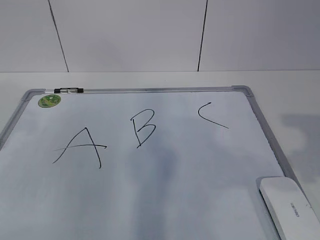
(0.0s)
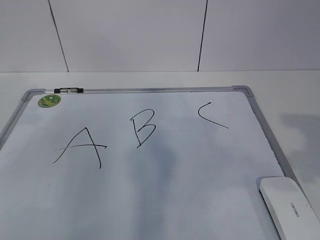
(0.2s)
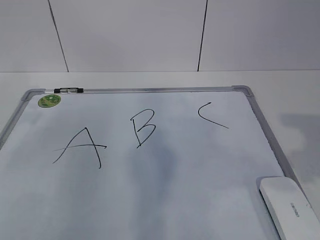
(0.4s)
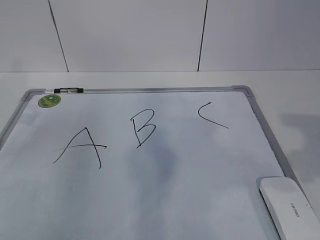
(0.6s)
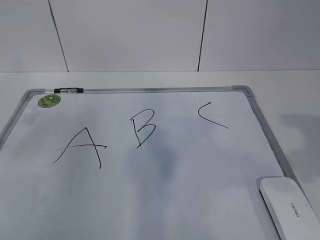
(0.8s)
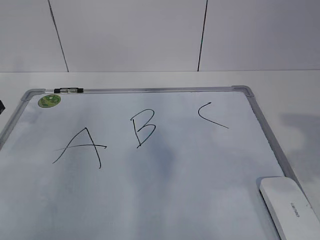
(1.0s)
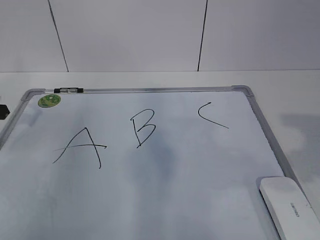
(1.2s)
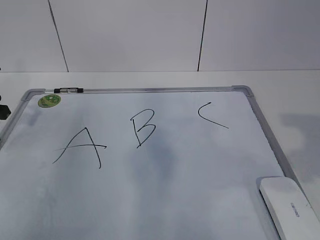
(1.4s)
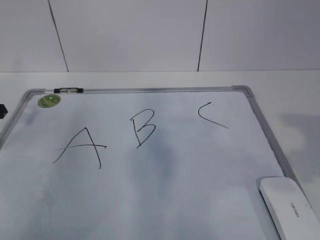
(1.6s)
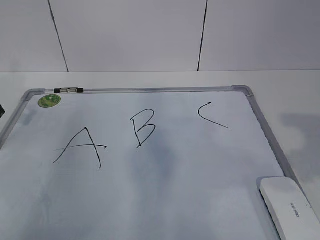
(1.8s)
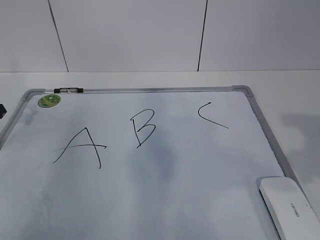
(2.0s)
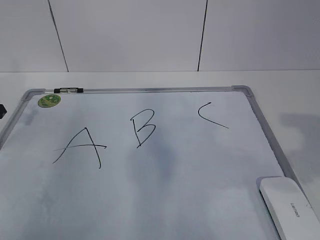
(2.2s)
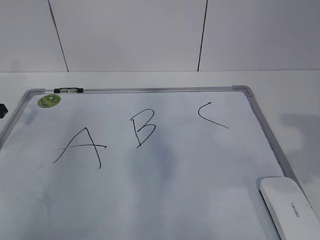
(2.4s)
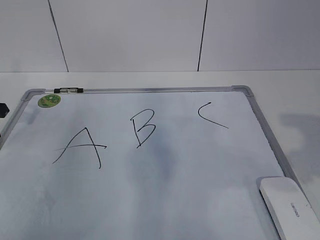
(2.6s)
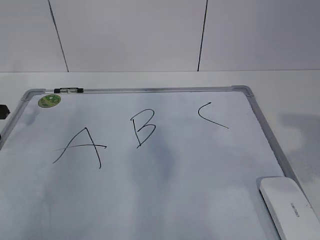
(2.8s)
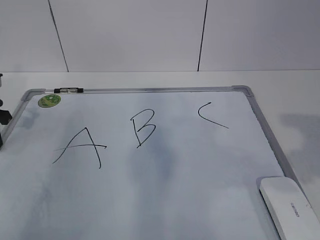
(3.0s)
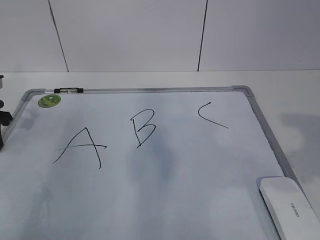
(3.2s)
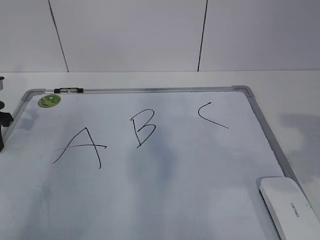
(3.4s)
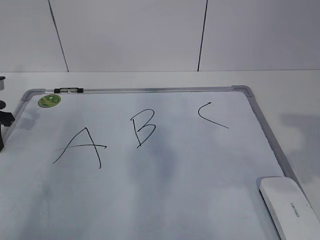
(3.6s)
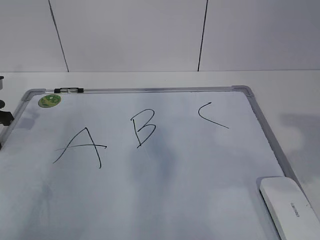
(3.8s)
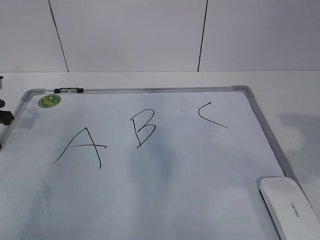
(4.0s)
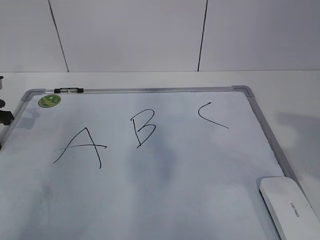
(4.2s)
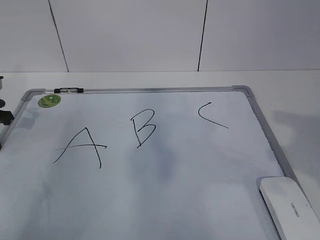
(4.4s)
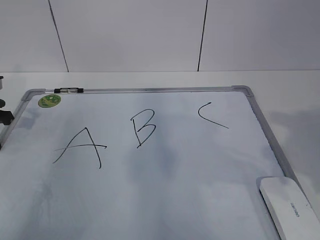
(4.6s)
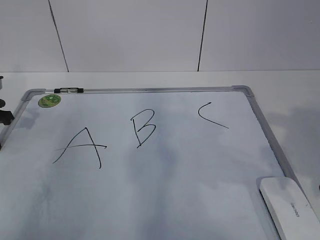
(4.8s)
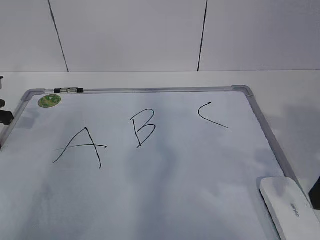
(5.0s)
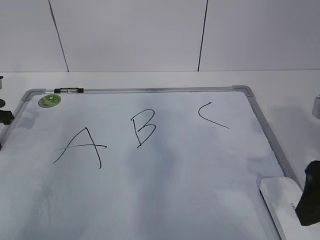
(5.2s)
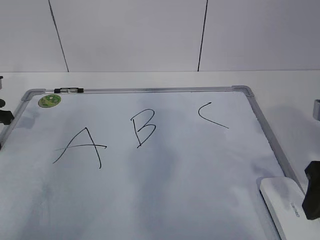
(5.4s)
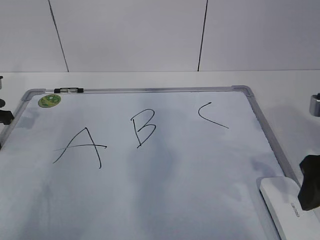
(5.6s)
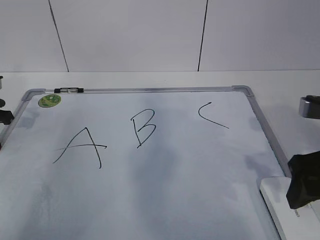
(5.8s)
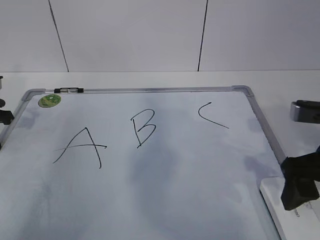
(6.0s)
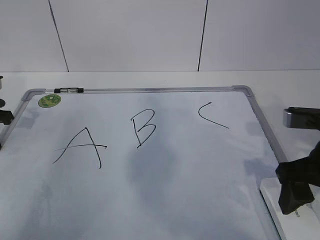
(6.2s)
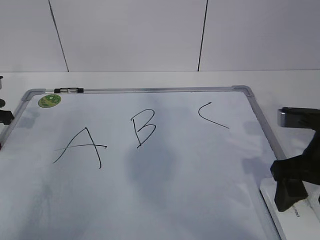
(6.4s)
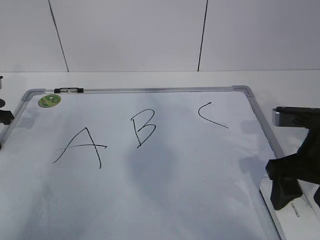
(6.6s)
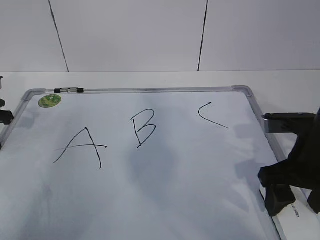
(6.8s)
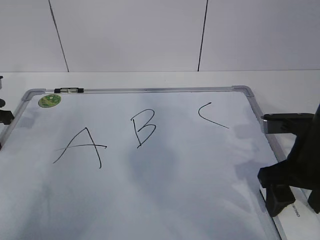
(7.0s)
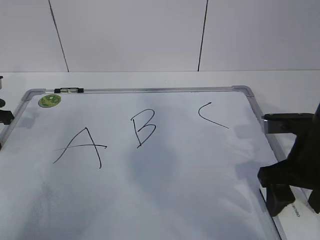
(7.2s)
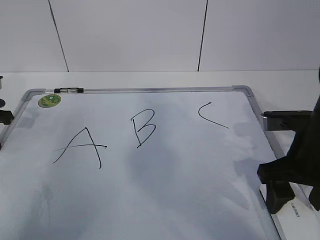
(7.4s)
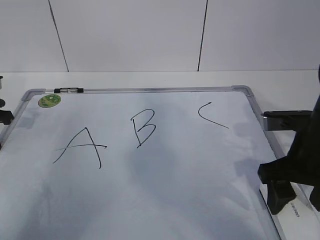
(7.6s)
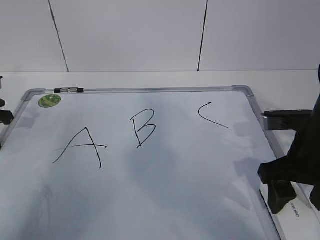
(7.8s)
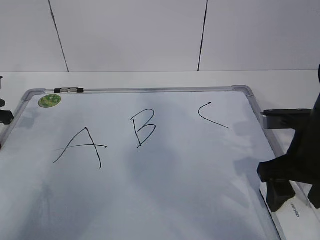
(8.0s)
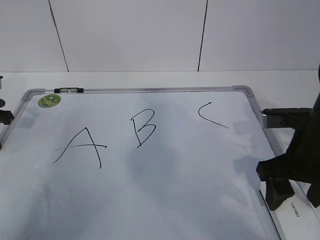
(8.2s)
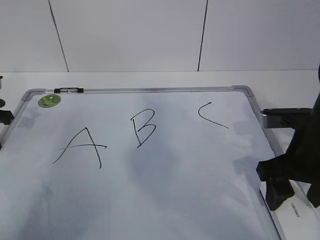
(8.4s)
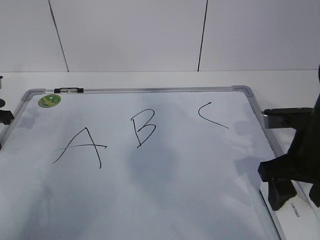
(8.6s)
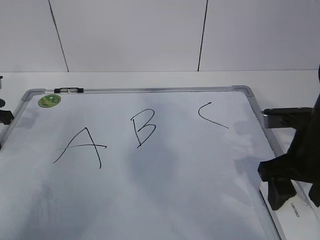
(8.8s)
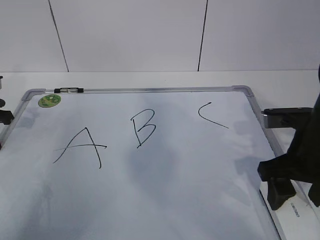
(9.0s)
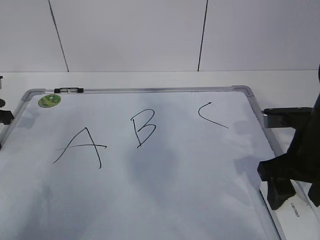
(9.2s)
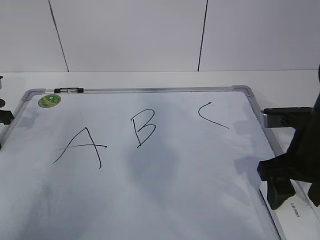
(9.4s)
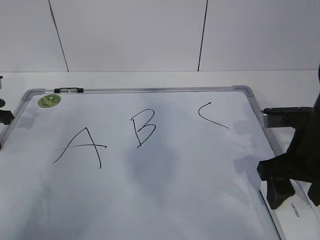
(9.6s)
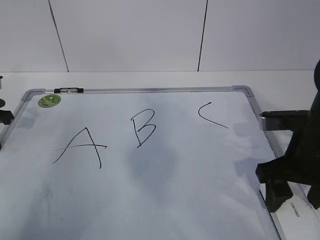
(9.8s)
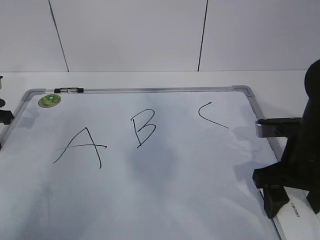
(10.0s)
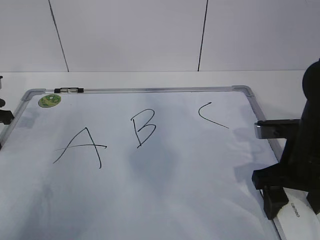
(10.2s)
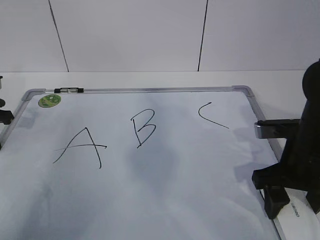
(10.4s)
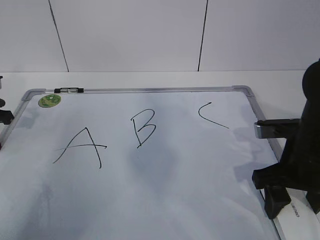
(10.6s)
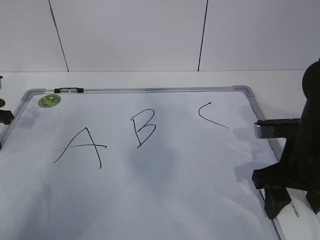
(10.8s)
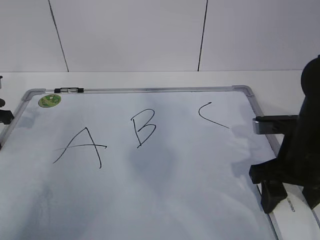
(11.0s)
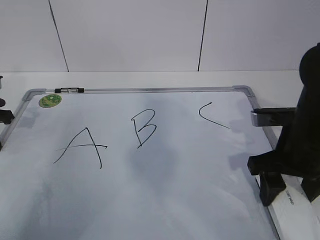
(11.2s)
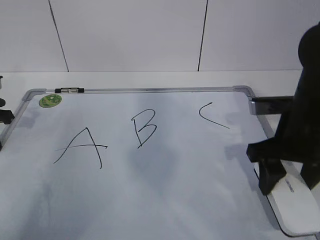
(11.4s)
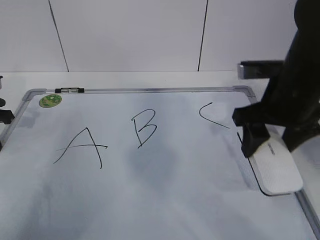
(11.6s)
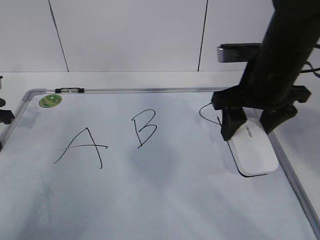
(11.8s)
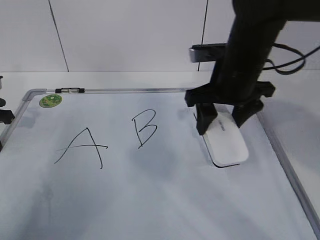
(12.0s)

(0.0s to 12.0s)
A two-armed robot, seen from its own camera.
Task of the whole recording: pick up the eraser on the blackboard and erase the letter "B".
Step, 2.4s - 8.0s: Grab the eraser with your right hand.
0.0s - 1.6s: The left gripper heads forward and downward, covering roughly 20 cm.
4.4s - 6.0s: The right gripper goes approximately 10 cm downward and forward.
6.0s - 7.6s: There are only small adjustments of the grippers.
7.6s - 9.0s: The two grippers keep their place.
9.0s - 10.4s: The grippers stay close to where they were, moving slightly.
10.4s - 12.0s: The right gripper is displaced forward, to the left and upward by roughly 15 cm.

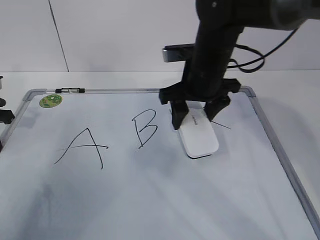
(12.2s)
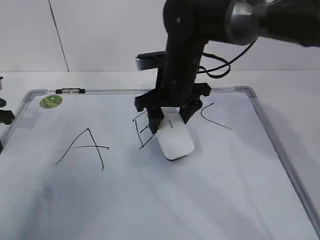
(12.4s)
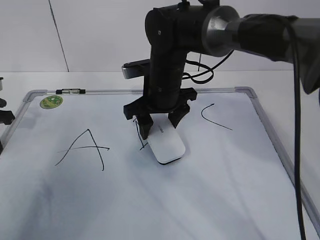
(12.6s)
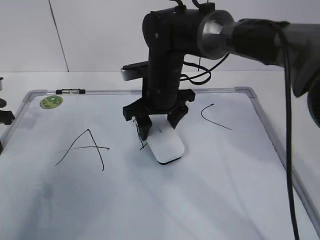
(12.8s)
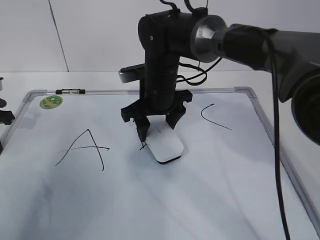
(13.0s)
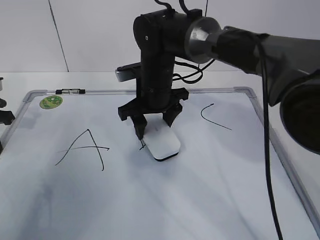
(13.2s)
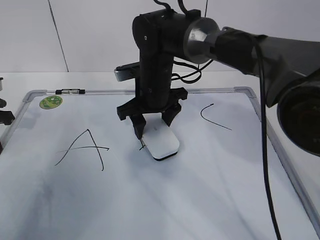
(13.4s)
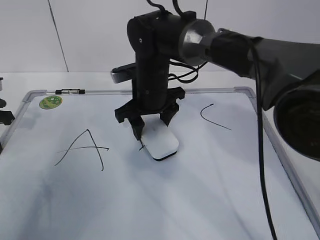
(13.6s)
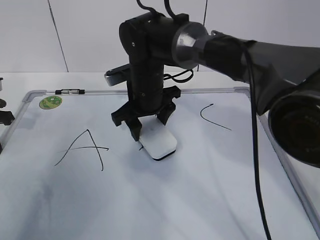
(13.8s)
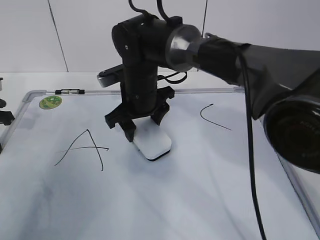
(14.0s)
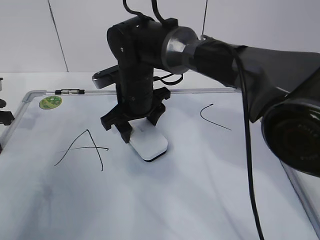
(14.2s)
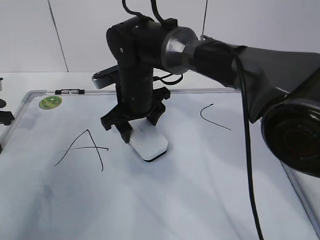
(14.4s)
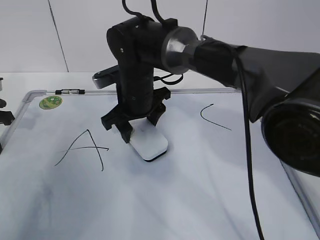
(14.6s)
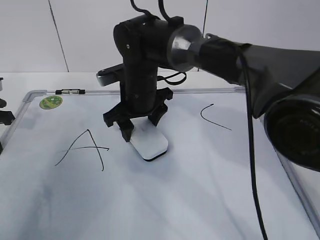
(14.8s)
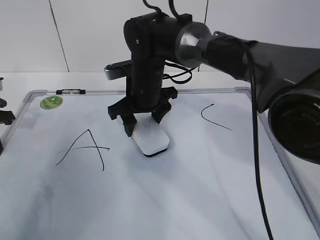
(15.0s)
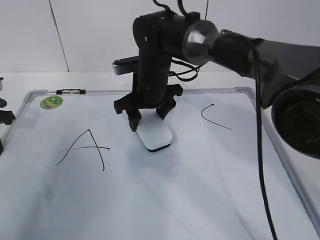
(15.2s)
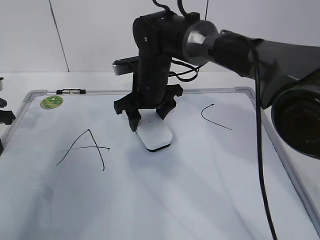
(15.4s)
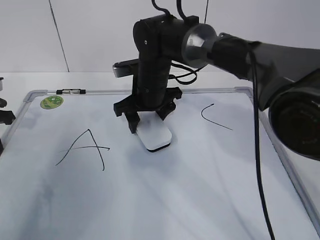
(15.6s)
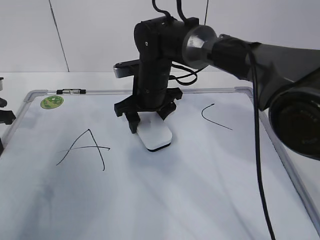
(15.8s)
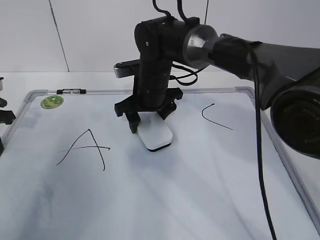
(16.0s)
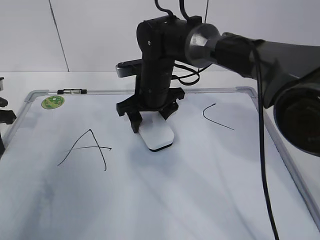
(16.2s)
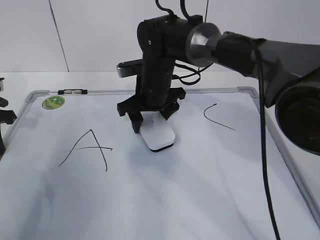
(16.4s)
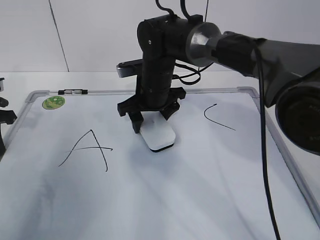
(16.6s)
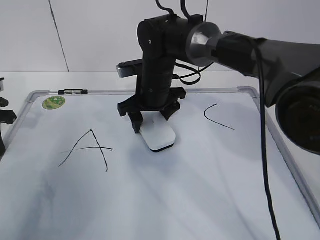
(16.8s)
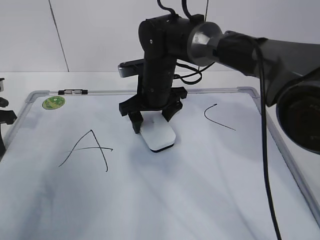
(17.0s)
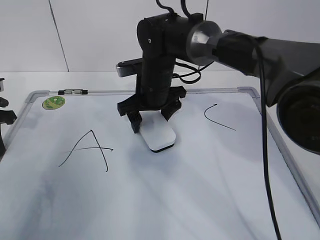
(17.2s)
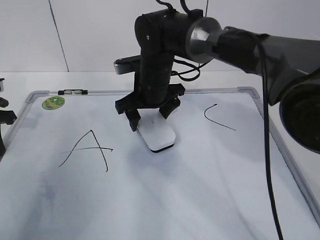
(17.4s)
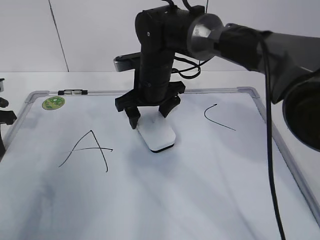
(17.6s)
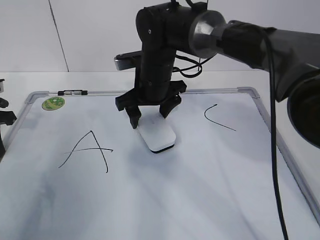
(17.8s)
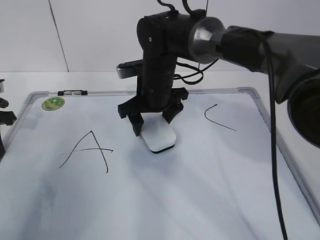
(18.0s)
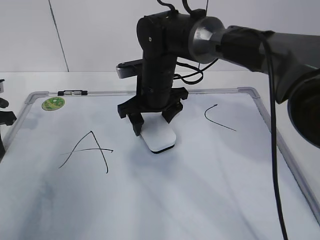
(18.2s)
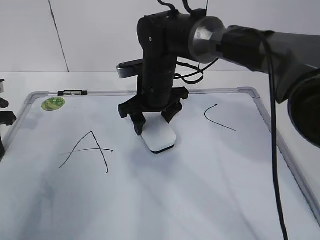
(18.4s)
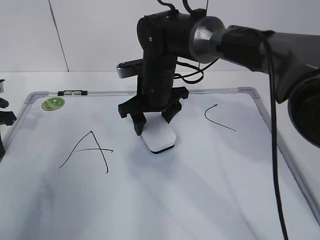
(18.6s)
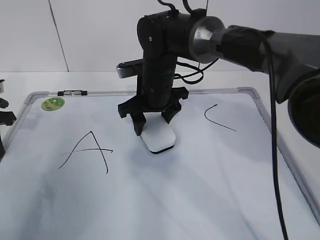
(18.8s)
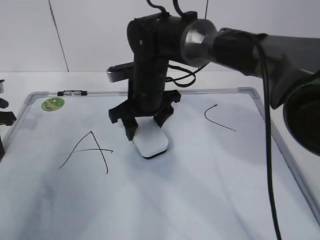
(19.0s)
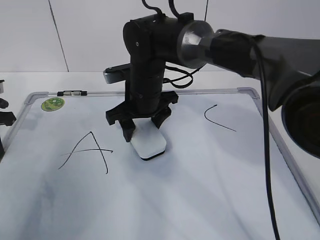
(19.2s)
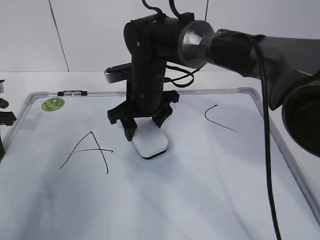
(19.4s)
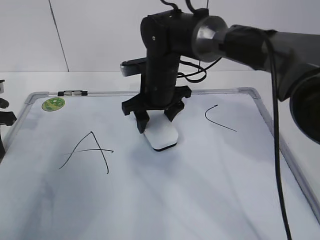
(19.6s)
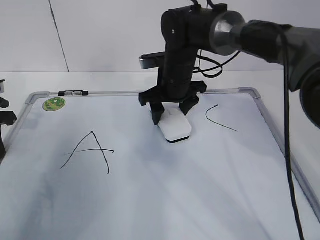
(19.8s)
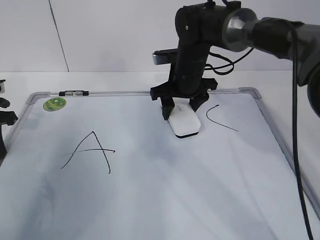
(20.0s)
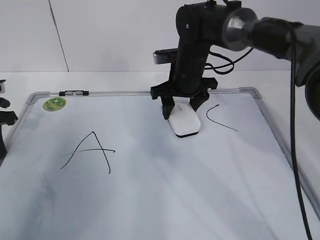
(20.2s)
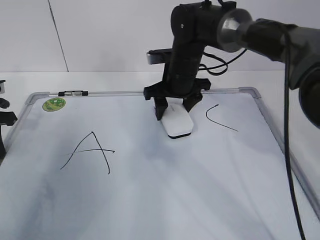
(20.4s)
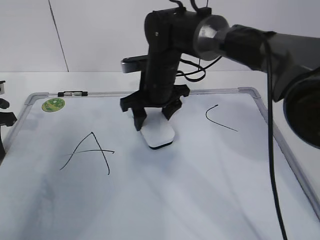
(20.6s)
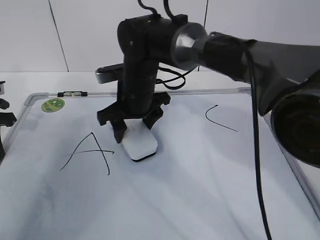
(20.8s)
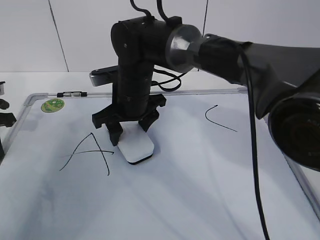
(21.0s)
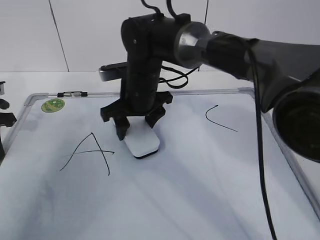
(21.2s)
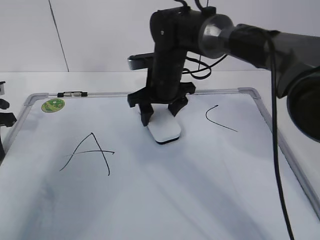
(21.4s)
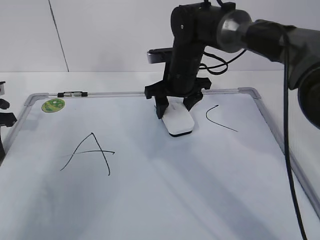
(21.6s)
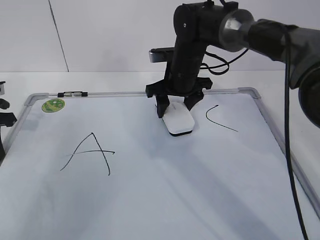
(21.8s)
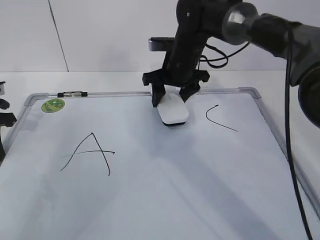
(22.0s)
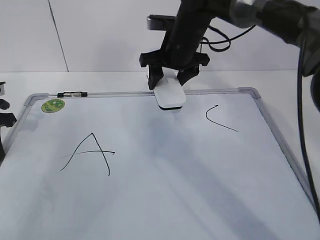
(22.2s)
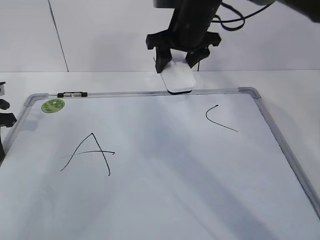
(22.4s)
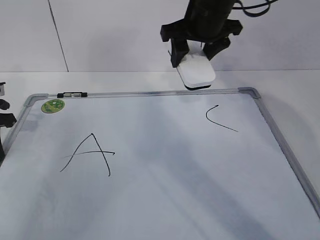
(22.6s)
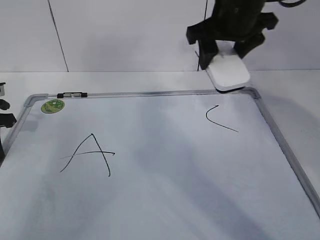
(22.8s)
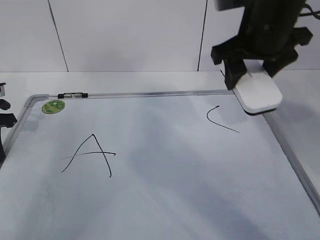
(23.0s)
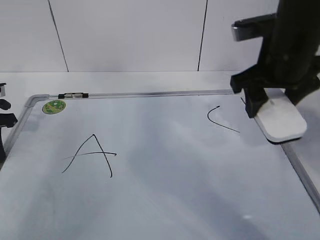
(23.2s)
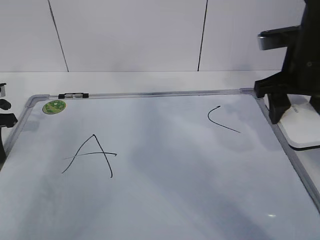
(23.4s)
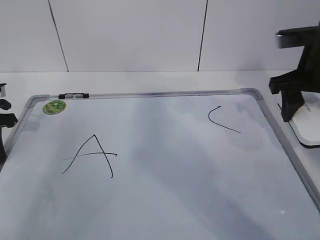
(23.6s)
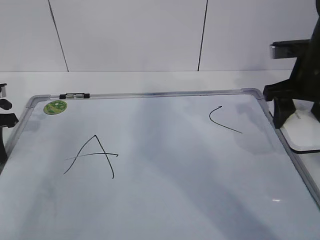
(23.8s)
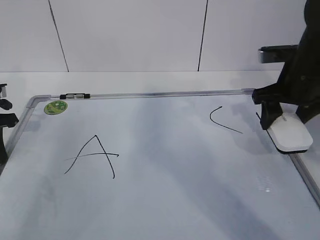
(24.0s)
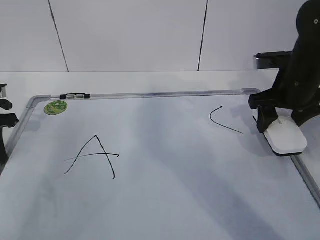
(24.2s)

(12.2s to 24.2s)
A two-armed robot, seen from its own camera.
Task of the whole recording: pick up the eraser on the blackboard and erase the letter "B".
Step, 12.2s - 17.6s: Erase the letter B with your right hand.
Step, 17.8s - 23.4s: Put down the eraser with your right hand.
12.2s - 13.8s: The right gripper shifts roughly 10 cm to the left and downward.
13.8s - 15.2s: There are only small adjustments of the grippers.
15.2s - 16.6s: Both grippers stay about where they are.
16.6s - 18.2s: The grippers stay close to where they were, moving slightly.
18.2s - 19.8s: The right gripper closes its fingers.
19.8s - 21.2s: The right gripper goes some 5 cm to the left.
21.2s - 22.6s: The right gripper moves upward and to the right, roughly 15 cm.
22.6s - 24.2s: The right gripper is displaced to the right and downward by about 15 cm.
